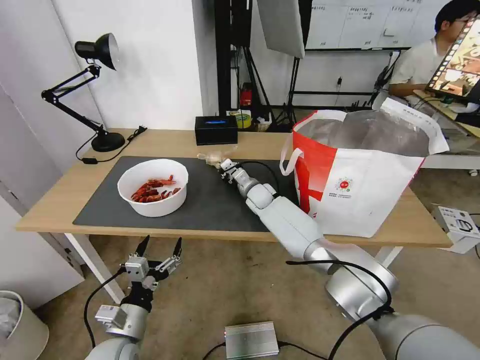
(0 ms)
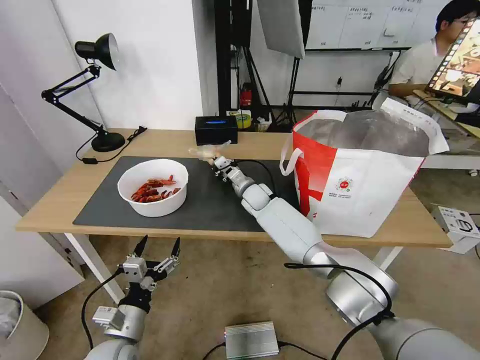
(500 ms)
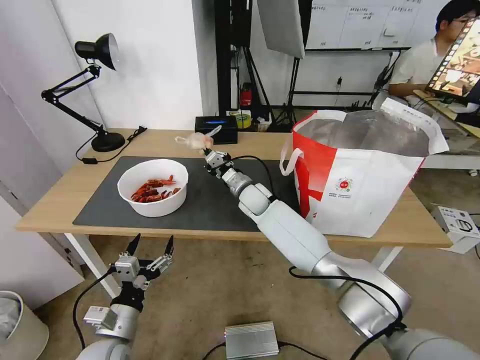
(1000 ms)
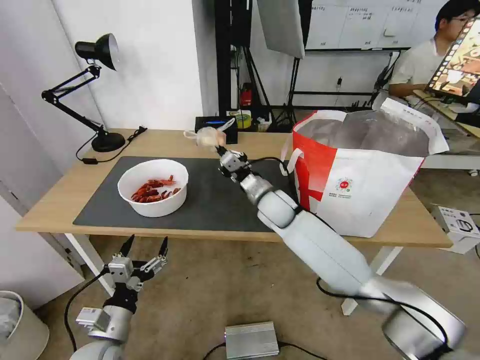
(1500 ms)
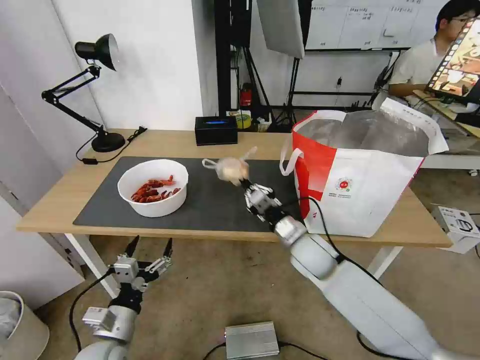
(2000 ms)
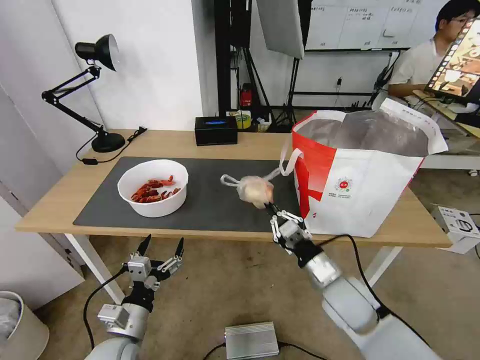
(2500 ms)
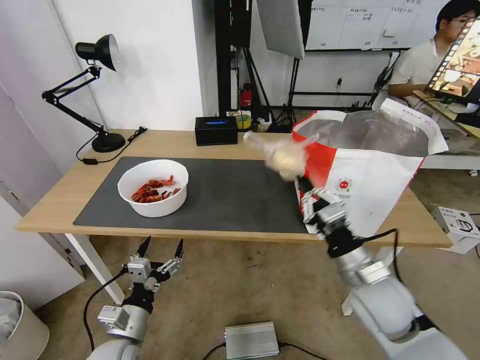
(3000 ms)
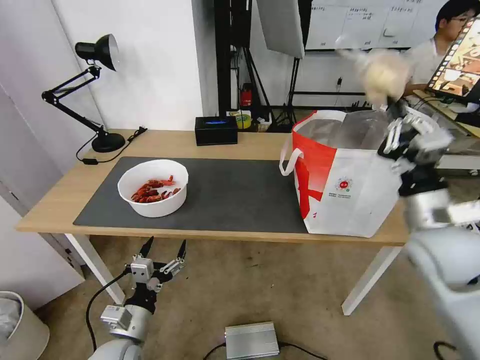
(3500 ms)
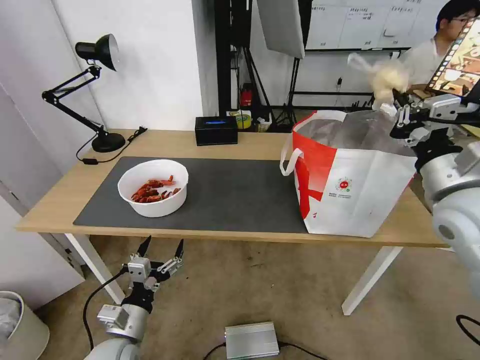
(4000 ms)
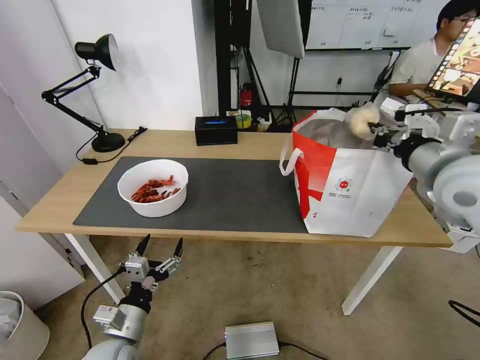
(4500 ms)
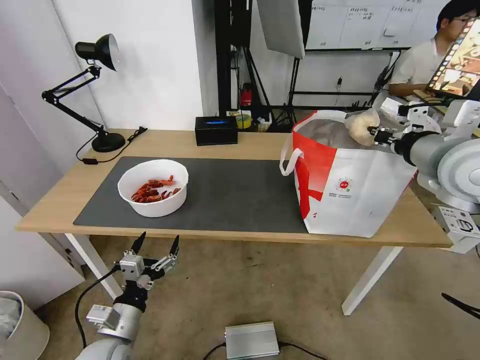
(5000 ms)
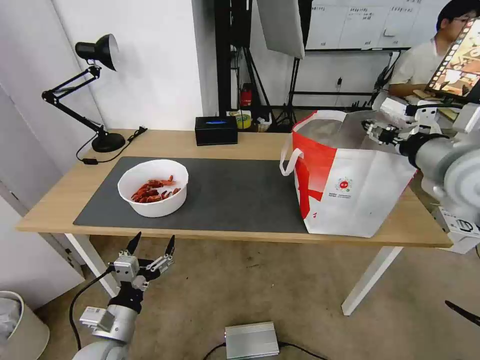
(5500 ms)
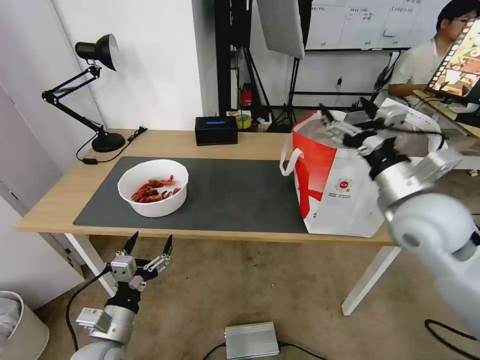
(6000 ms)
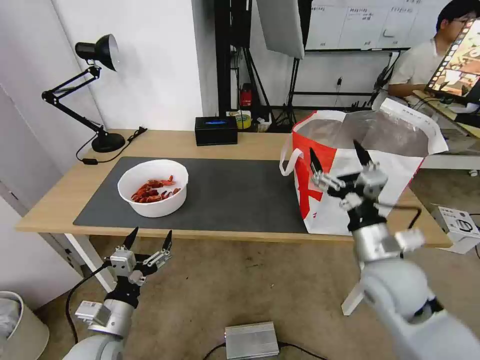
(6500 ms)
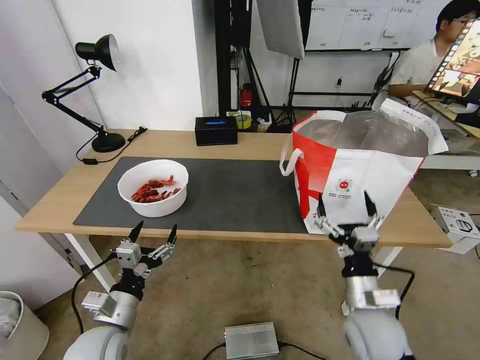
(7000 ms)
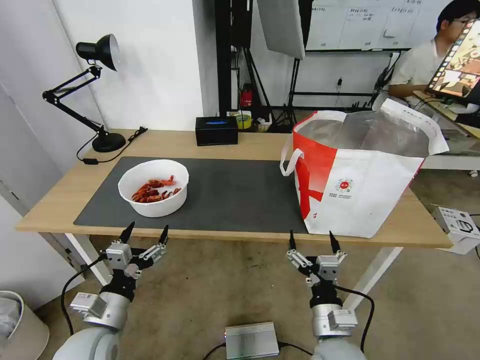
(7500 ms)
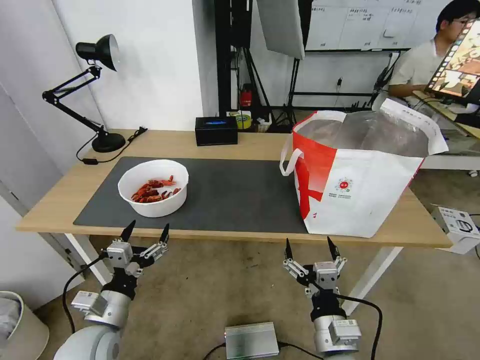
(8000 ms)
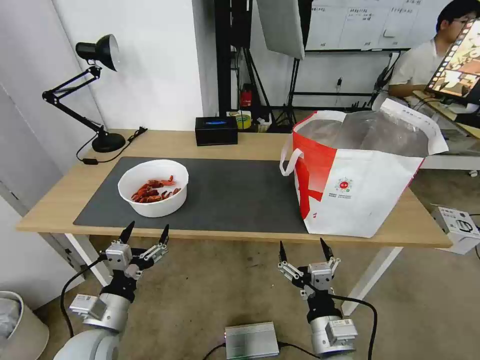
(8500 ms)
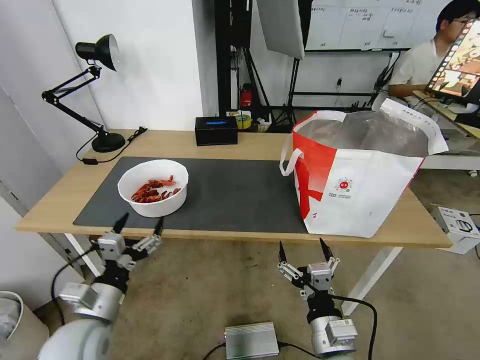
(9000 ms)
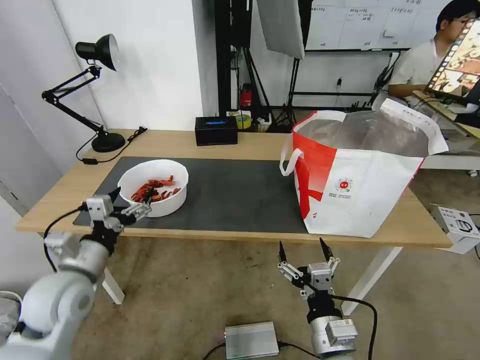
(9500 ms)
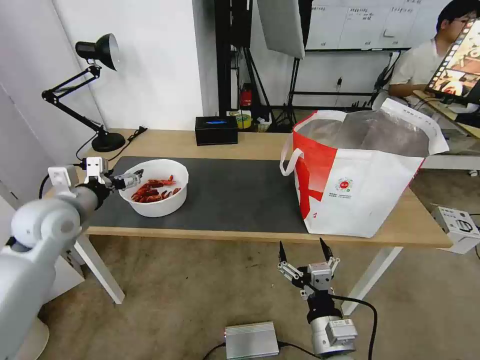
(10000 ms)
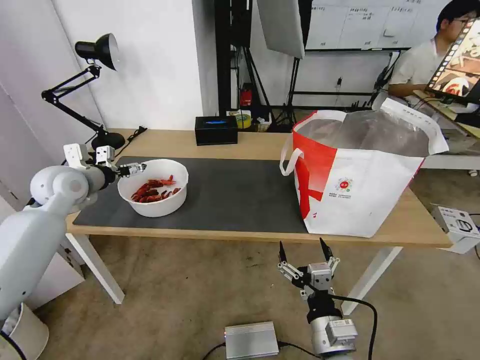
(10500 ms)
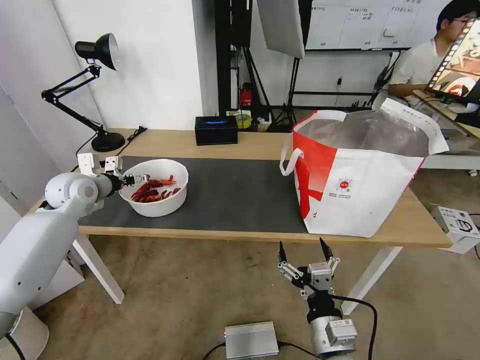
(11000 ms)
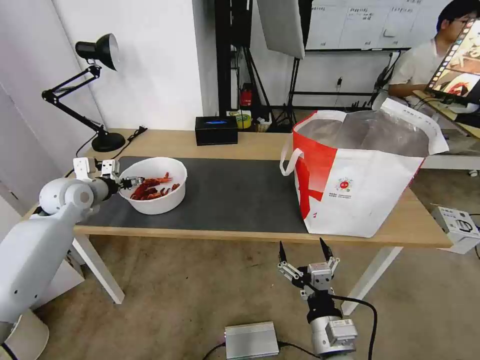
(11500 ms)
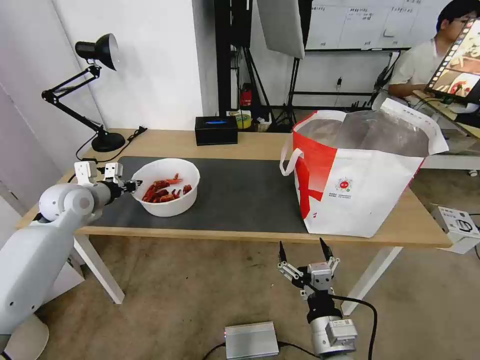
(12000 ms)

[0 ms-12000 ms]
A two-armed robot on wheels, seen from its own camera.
Task of the whole recording: Pick up the trash from the table and place it into the takeout bag.
0 ms to 2000 ms: The right gripper travels backward and to the right by about 25 cm.
2000 ms to 4000 ms: The right gripper moves upward and to the right, approximately 30 cm.
4000 ms to 6000 ms: The right gripper travels to the left by some 5 cm, goes upward and returns, some 5 cm each way, and opens its fingers.
6000 ms to 8000 ms: The right gripper is displaced downward, backward and to the left by some 30 cm.
8000 ms to 10000 ms: The left gripper moves forward, upward and to the left, some 25 cm.
10000 ms to 12000 ms: The left gripper moves forward, roughly 10 cm, and closes up.

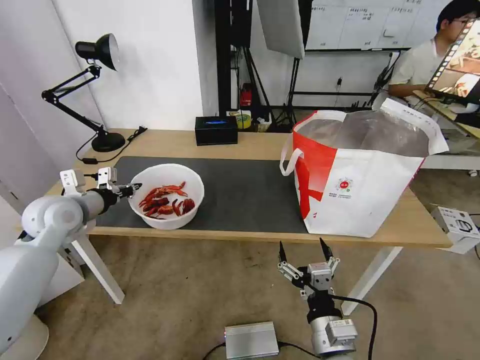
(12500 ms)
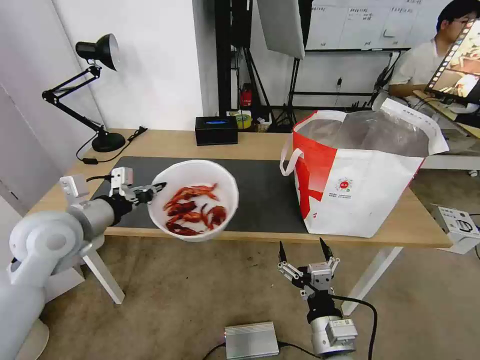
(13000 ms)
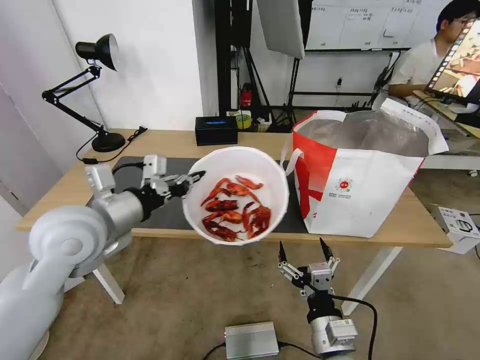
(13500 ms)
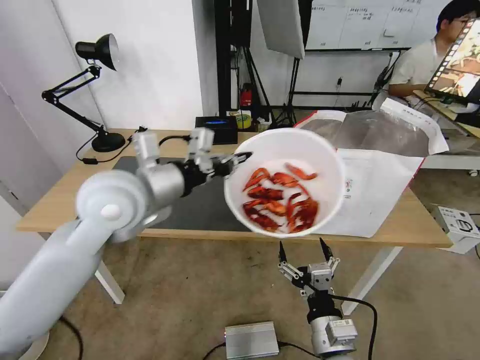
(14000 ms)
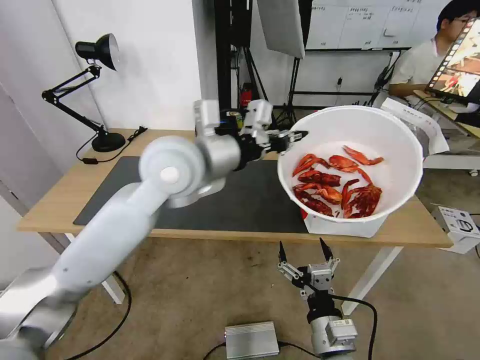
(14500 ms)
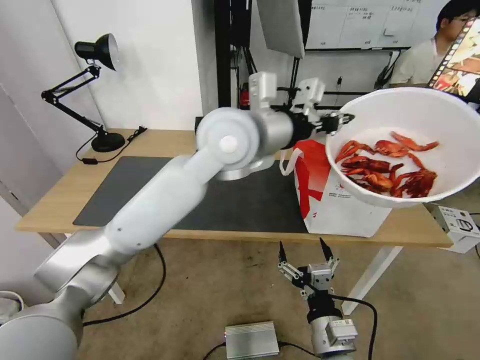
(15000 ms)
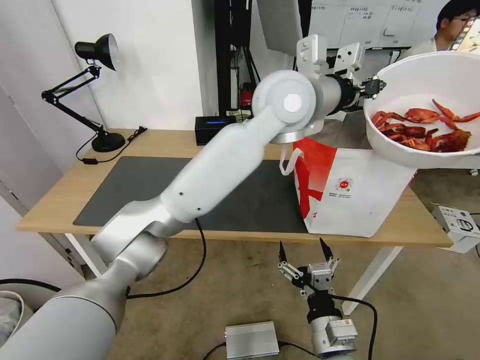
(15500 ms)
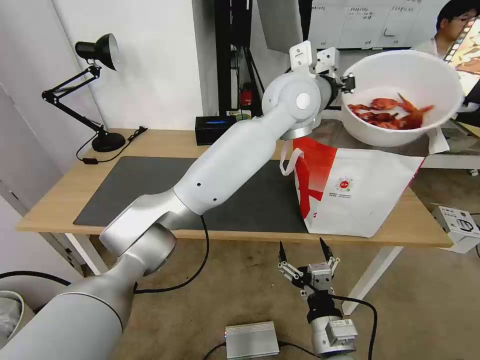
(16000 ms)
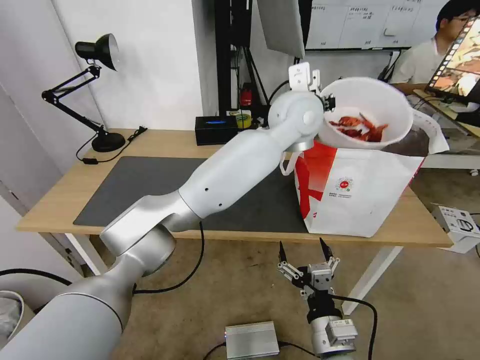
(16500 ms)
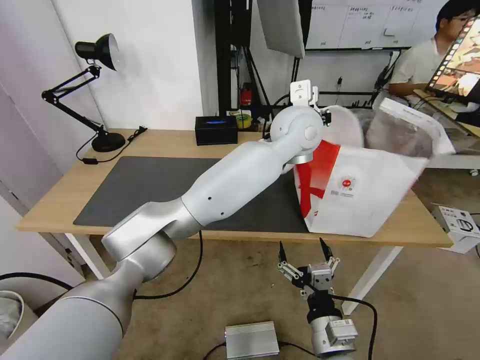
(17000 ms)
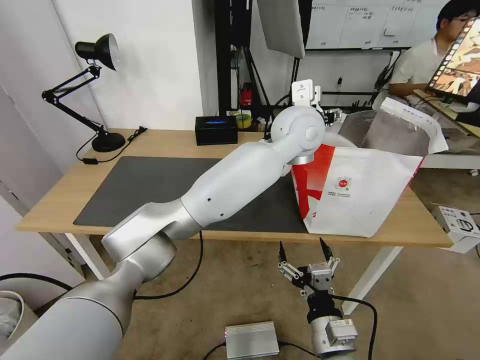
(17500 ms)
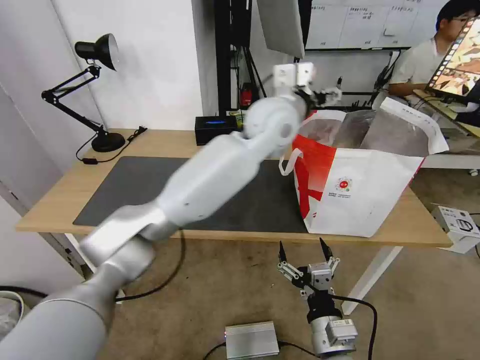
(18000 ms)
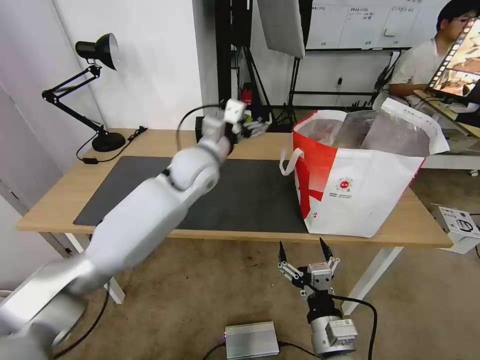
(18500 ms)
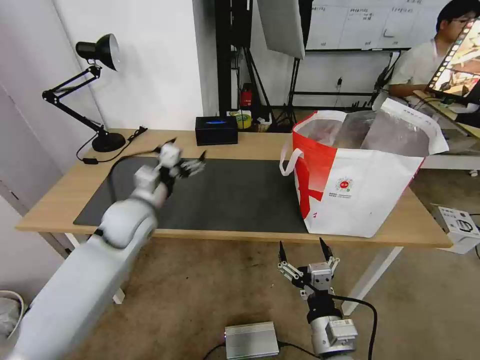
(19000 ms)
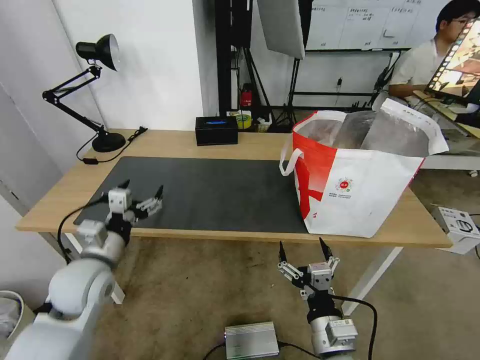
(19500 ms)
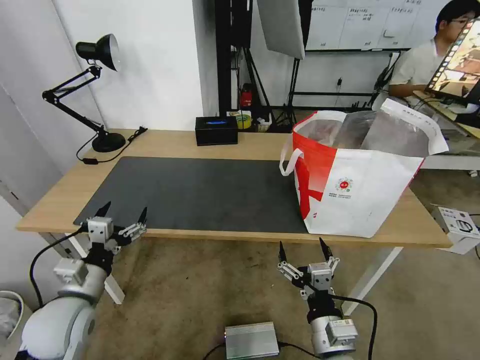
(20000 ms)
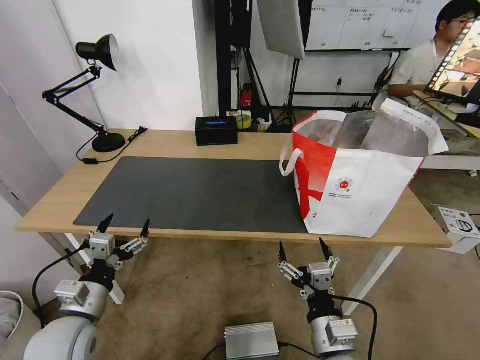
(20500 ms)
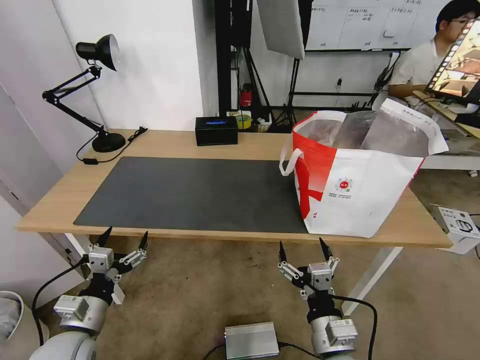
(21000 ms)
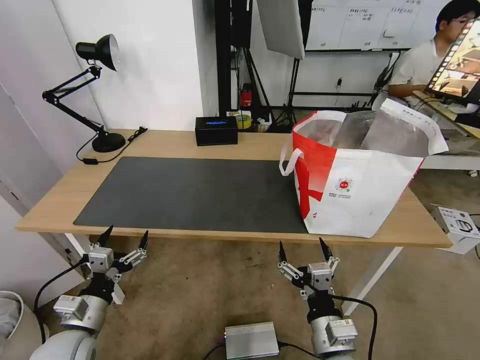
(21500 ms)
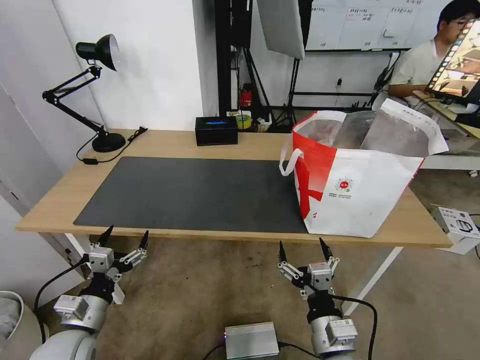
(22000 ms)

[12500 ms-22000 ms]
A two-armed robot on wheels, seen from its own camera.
Task of the whole recording: Pick up the trash from the table and place it into the takeout bag.
12500 ms to 14500 ms: The left gripper heads to the right and upward, covering some 30 cm.
14500 ms to 16500 ms: The left gripper heads to the right and forward, covering some 25 cm.
16500 ms to 18000 ms: The left gripper heads to the left, covering approximately 5 cm, and opens.
18000 ms to 20000 ms: The left gripper shifts about 50 cm to the left, backward and downward.
20000 ms to 22000 ms: The left gripper heads downward, covering approximately 5 cm.
